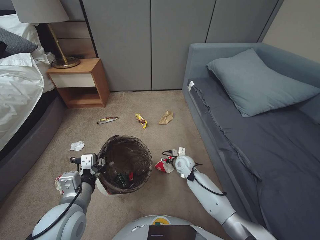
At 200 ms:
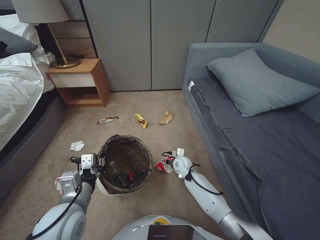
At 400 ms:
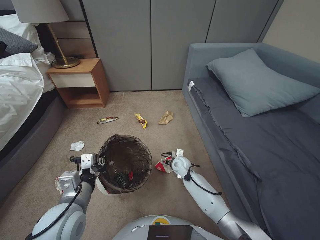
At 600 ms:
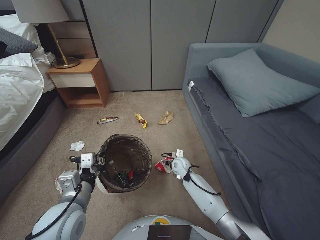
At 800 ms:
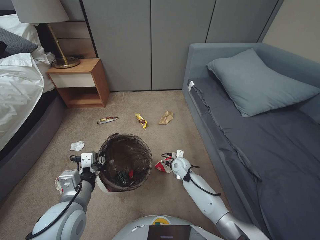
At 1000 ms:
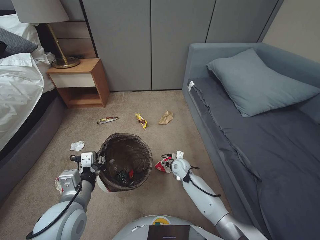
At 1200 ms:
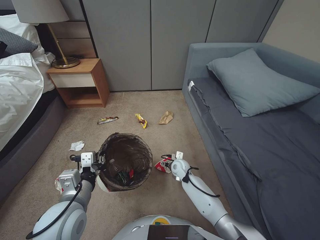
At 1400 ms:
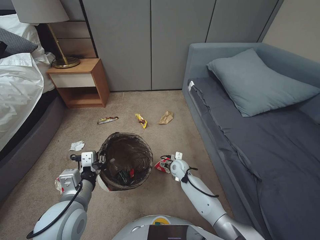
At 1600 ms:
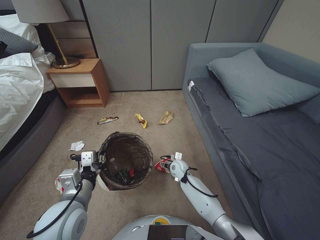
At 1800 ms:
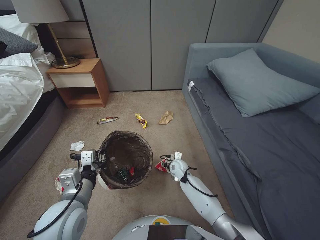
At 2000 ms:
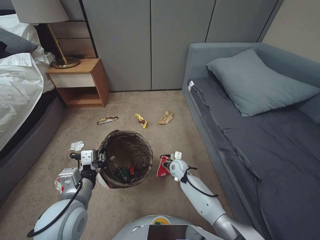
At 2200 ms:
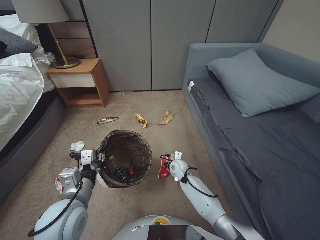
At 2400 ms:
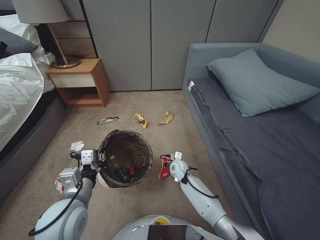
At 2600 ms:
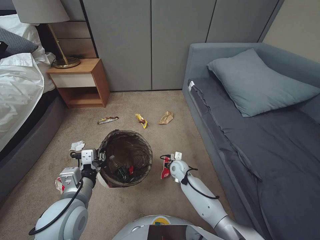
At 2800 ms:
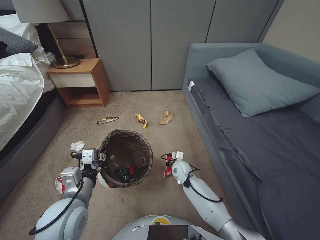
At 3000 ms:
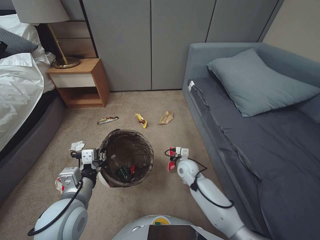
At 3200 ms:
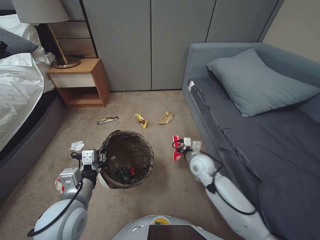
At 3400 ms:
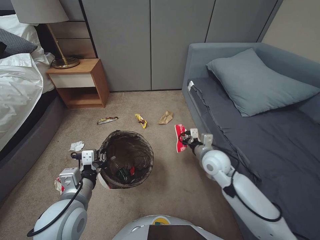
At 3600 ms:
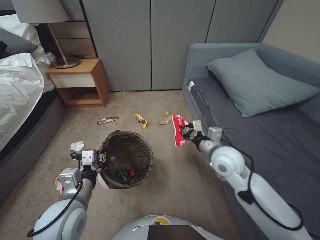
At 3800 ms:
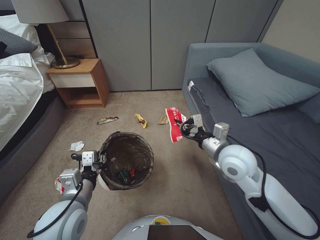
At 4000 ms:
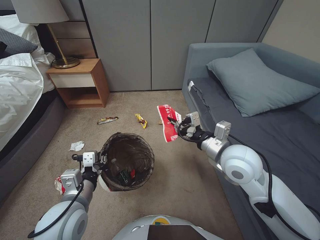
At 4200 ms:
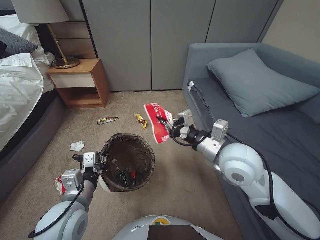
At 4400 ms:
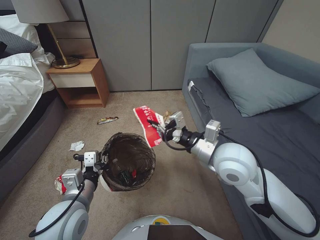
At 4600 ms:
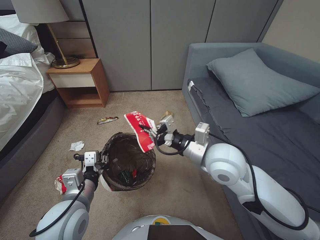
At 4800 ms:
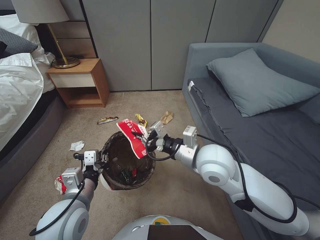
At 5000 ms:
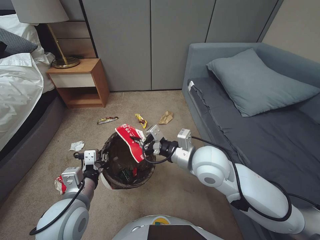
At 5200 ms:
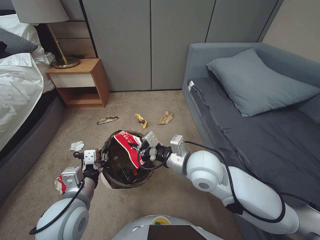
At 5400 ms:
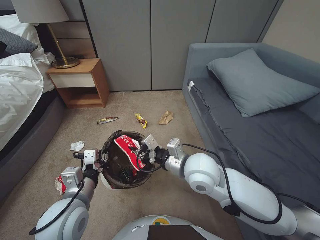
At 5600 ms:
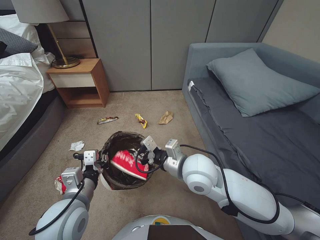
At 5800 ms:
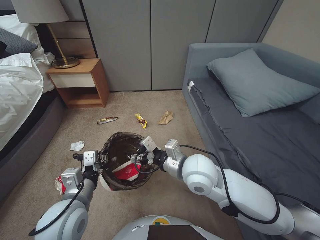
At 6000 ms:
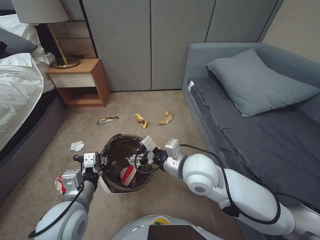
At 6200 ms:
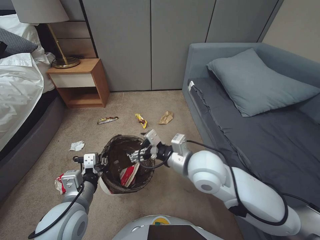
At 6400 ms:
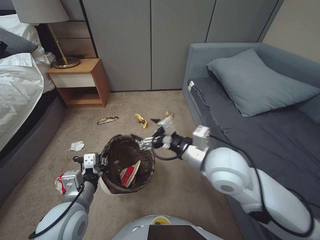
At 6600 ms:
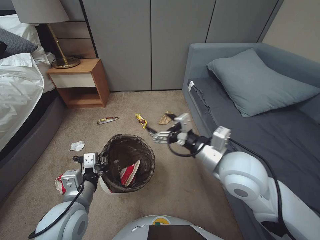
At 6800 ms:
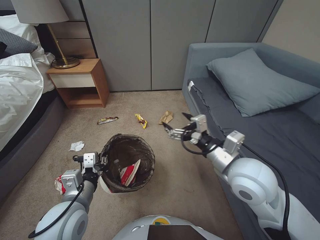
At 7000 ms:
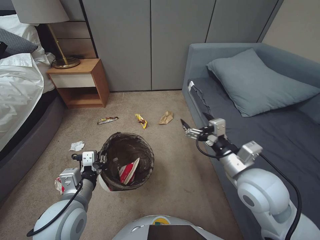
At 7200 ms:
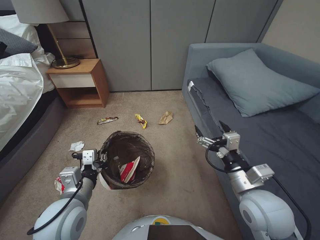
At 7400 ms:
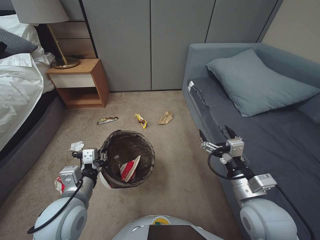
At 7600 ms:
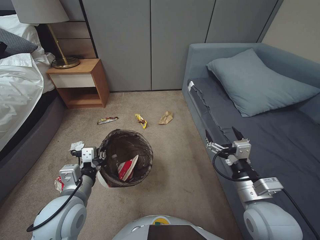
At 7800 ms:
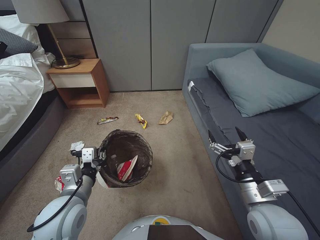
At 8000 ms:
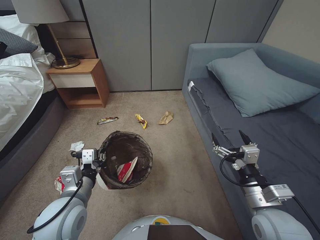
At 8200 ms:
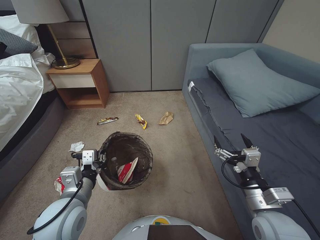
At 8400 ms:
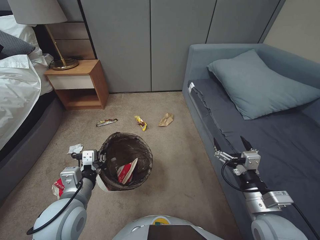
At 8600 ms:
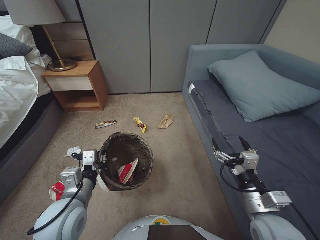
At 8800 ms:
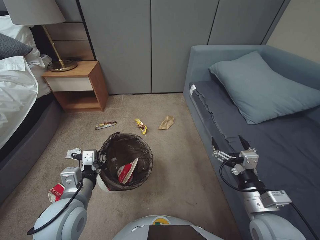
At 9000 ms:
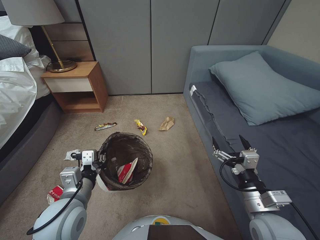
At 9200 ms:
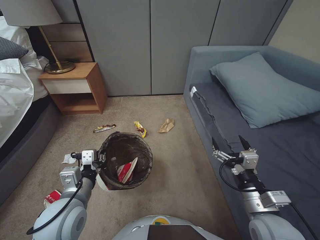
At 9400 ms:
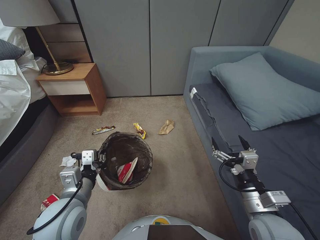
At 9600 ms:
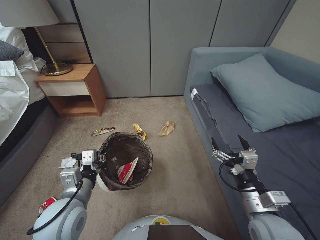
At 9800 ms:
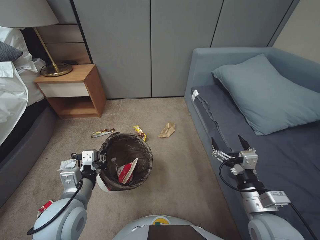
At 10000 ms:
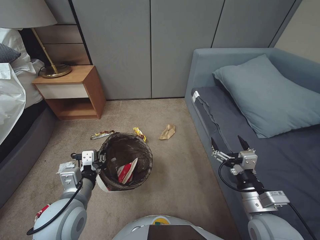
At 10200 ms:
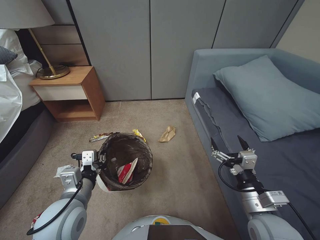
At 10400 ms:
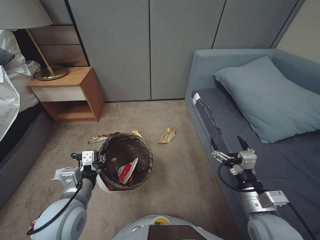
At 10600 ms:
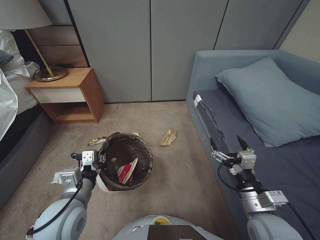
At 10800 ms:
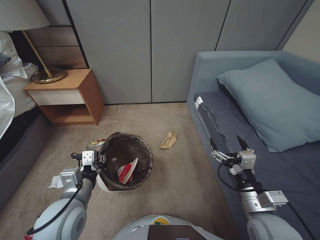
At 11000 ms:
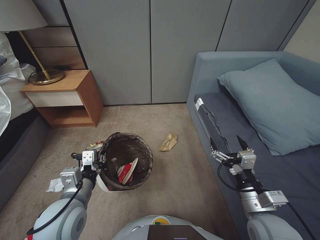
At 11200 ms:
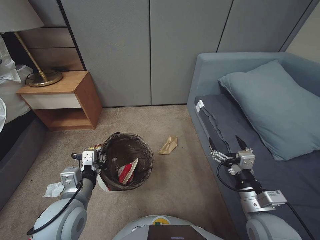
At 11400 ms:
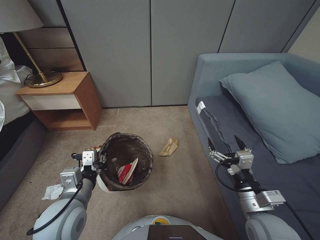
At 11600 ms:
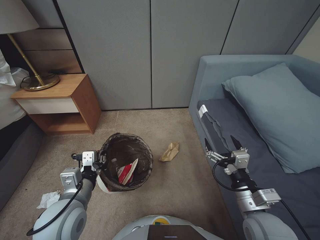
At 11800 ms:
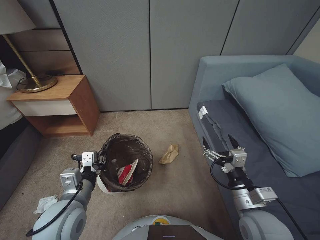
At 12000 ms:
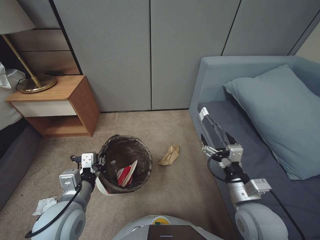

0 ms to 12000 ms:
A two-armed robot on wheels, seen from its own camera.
Task of the whole recording: Pick up the trash bin, then pick up the garbage from the floor and place it into the trash bin.
0 ms to 1600 ms: The grippers make only small movements.
1600 ms to 3000 ms: The right gripper moves approximately 5 cm, and closes.
3000 ms to 4400 ms: The right gripper is displaced upward by approximately 30 cm.
4400 ms to 6000 ms: The right gripper travels to the left and downward by some 10 cm, and opens.
6000 ms to 7600 ms: The right gripper is displaced to the right and backward by some 20 cm.
7600 ms to 9000 ms: The grippers stay close to where they were, moving slightly.
9000 ms to 10400 ms: Both grippers stay about where they are.

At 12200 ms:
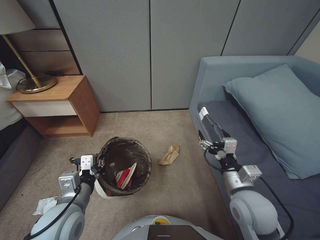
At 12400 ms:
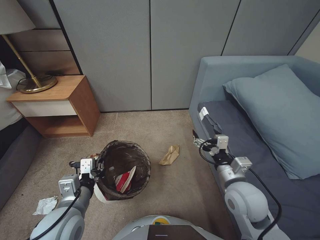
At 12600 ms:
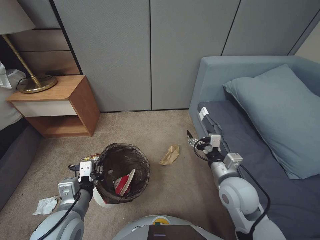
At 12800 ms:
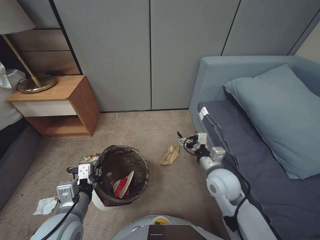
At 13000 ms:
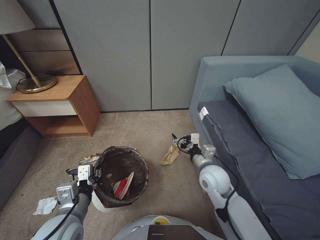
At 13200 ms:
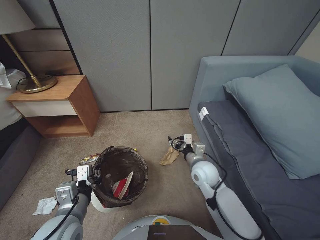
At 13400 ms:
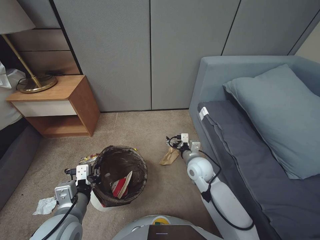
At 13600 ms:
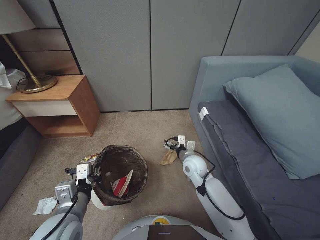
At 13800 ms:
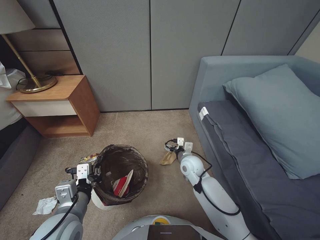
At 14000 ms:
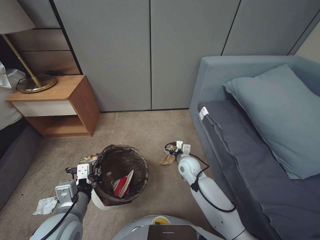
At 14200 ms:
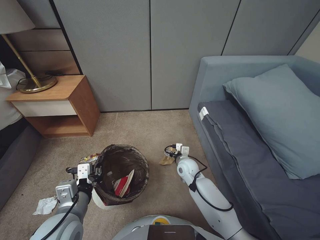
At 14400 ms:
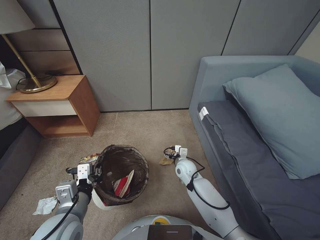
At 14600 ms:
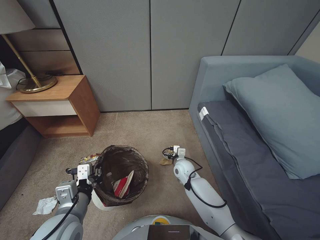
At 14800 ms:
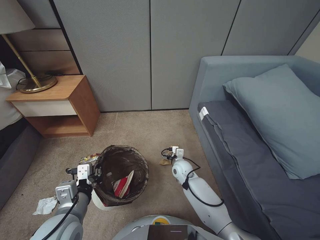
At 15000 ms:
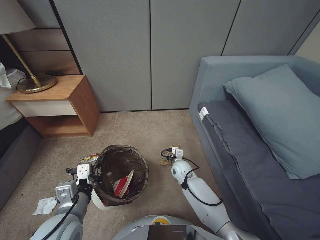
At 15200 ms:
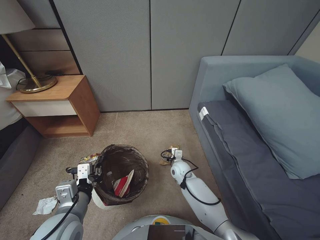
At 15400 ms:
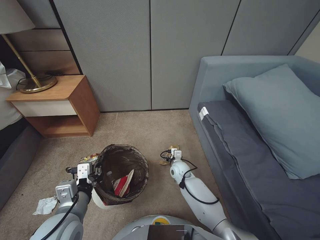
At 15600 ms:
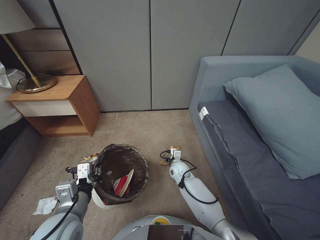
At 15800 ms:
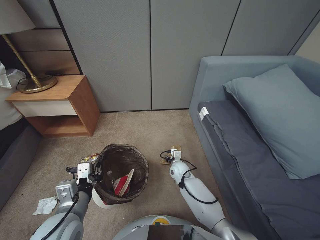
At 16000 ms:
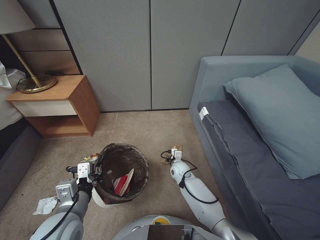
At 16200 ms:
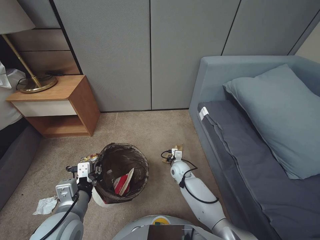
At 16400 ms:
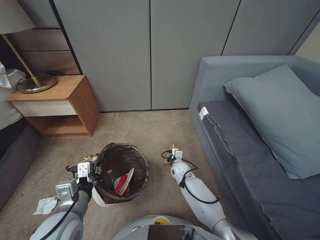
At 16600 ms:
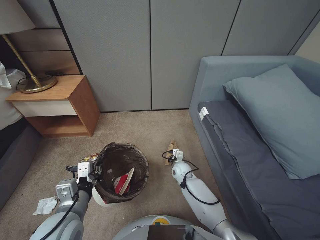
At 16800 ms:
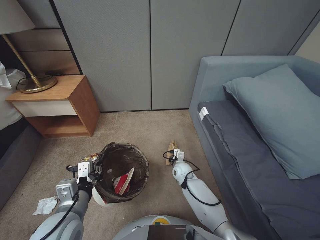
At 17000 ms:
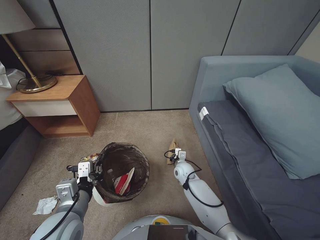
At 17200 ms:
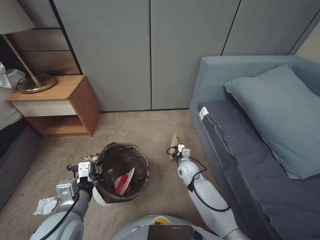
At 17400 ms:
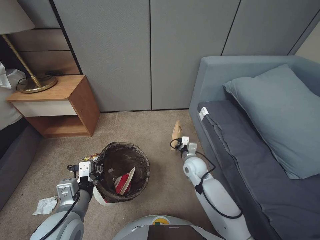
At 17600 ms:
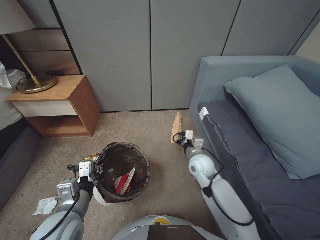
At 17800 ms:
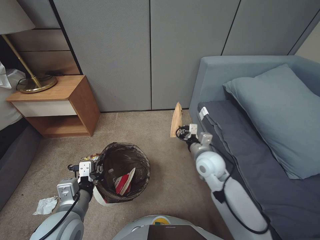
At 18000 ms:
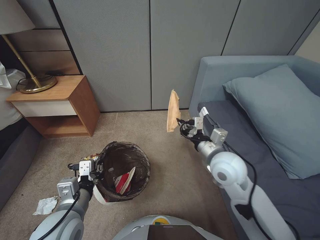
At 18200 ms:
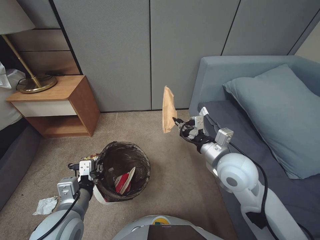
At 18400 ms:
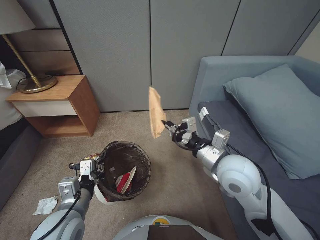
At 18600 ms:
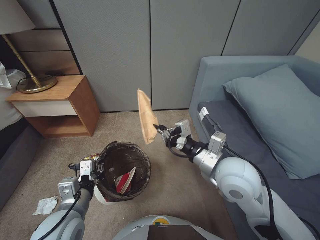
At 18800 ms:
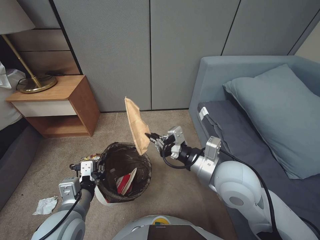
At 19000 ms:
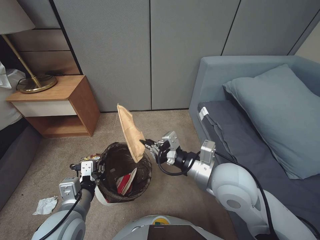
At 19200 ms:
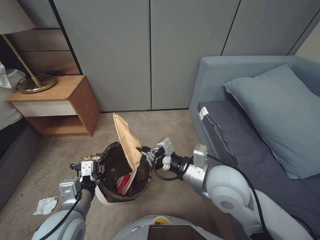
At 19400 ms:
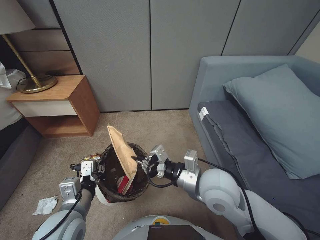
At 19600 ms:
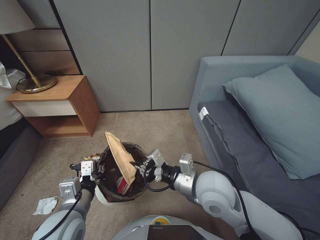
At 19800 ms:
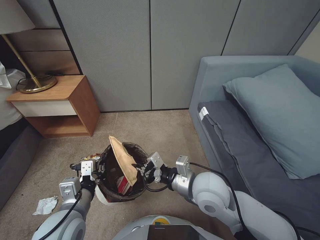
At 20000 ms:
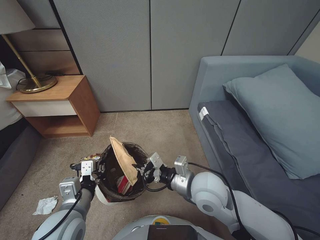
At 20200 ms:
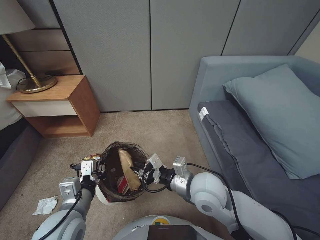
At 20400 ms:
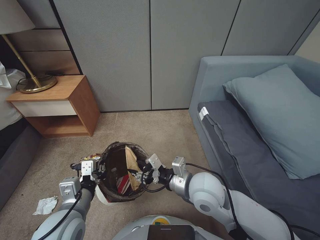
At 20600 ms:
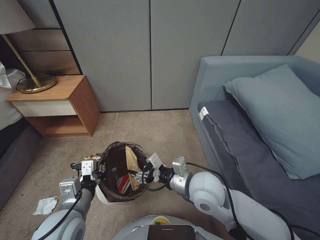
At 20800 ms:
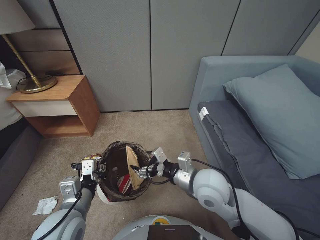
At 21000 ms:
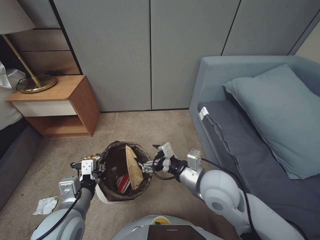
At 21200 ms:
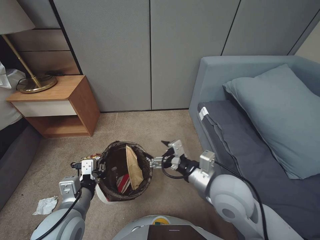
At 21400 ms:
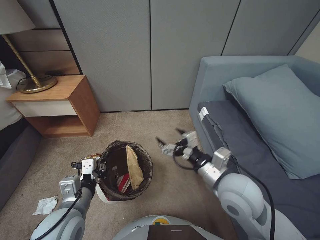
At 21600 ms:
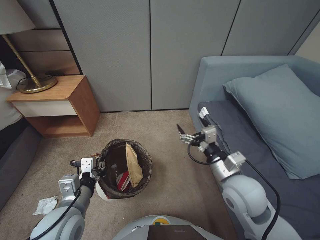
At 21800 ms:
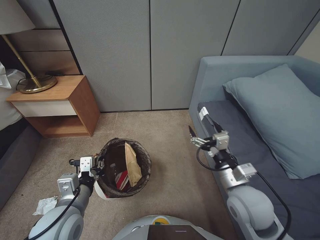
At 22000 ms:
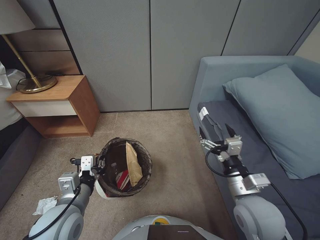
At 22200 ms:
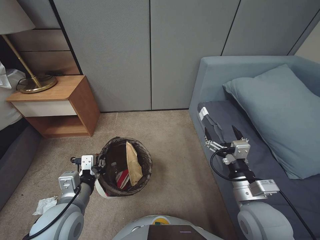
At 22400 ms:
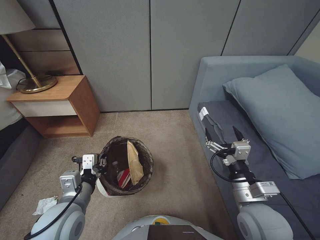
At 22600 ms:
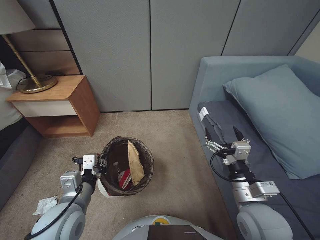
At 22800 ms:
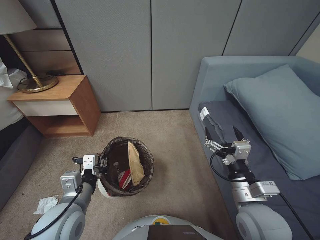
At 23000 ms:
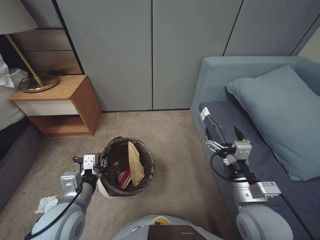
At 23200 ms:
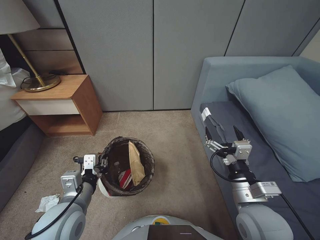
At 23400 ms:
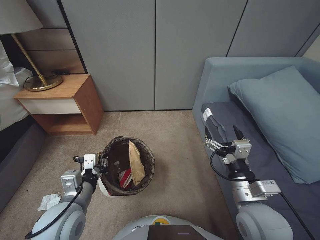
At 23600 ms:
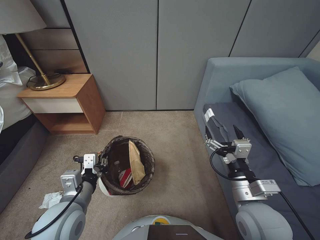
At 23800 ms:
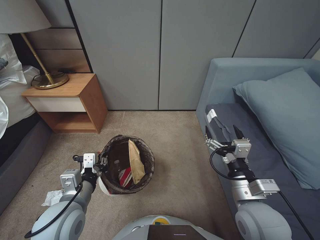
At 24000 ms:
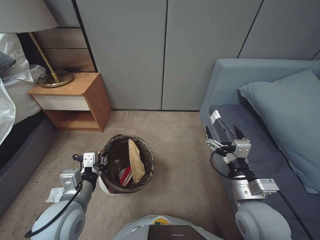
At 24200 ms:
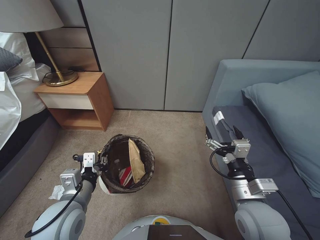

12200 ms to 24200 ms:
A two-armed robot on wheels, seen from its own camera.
Task of the whole recording: Pick up the trash bin, then pick up the garbage from the floor and place it into the trash bin.
12200 ms to 13800 ms: The right gripper heads forward, downward and to the left, covering some 25 cm.
13800 ms to 15200 ms: The right gripper shifts some 10 cm downward.
15200 ms to 16600 ms: The right gripper closes up.
16600 ms to 18200 ms: The right gripper shifts roughly 30 cm upward.
18200 ms to 19800 ms: The right gripper travels to the left by about 5 cm.
19800 ms to 21200 ms: The right gripper opens.
21200 ms to 22600 ms: The right gripper moves to the right and backward, about 10 cm.
